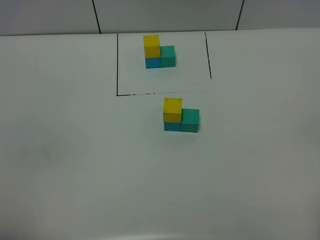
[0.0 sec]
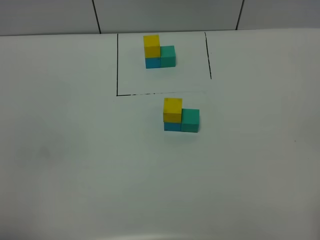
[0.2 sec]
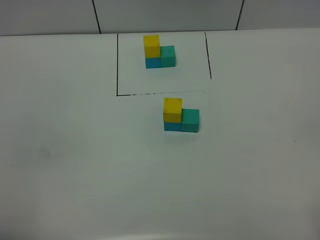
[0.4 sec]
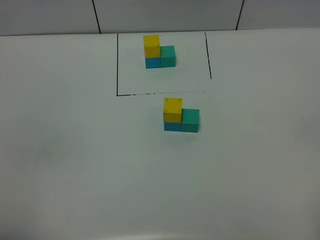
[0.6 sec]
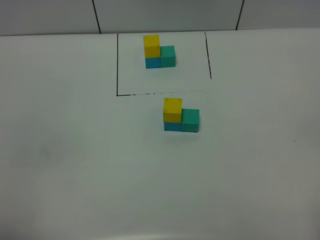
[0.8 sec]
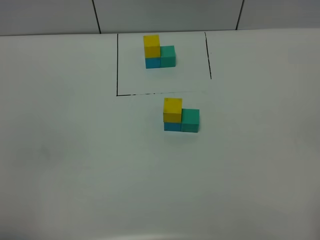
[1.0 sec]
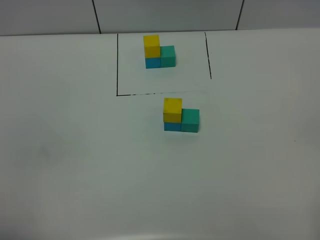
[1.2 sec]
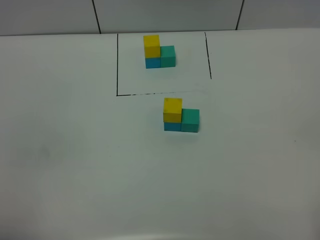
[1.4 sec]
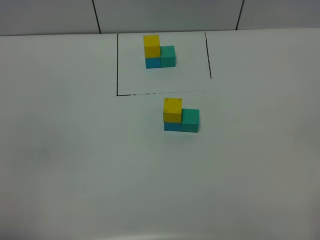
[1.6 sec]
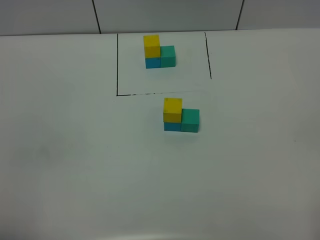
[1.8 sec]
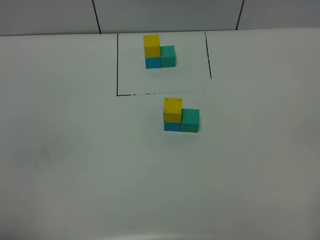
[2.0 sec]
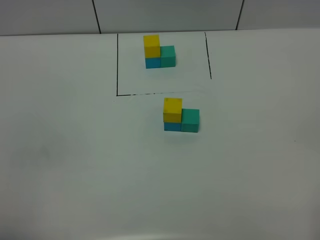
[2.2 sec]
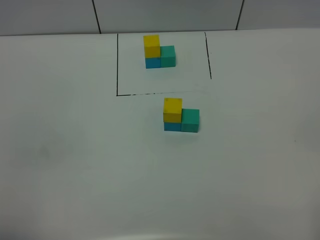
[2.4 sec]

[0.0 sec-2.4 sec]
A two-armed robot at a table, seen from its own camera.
Task of the whole recording: According to the building block template in front, assemble the scattered blocks together.
0.0 sec to 2.4 sec: The two grippers keep their place.
